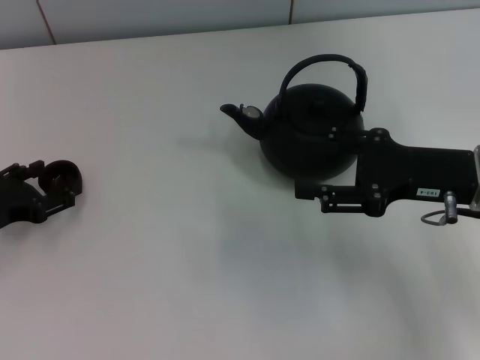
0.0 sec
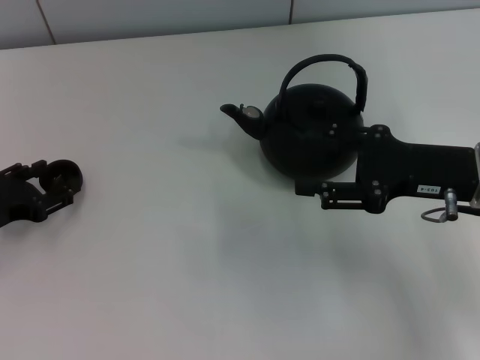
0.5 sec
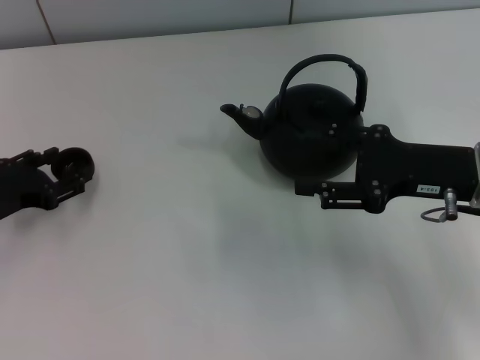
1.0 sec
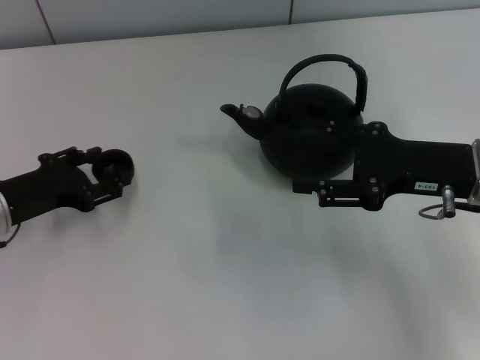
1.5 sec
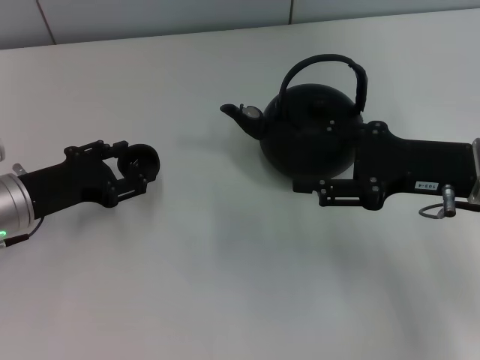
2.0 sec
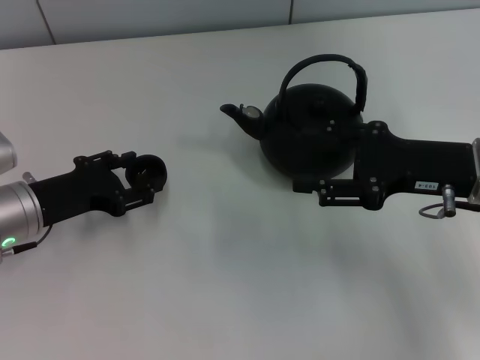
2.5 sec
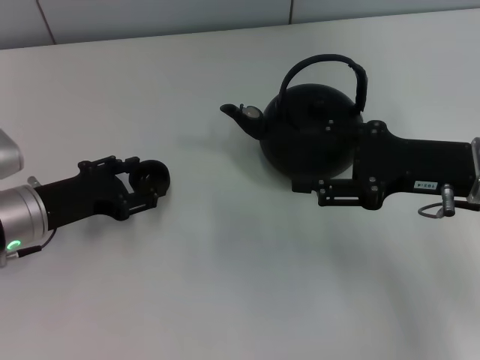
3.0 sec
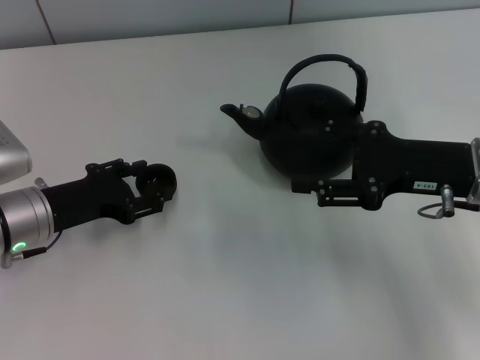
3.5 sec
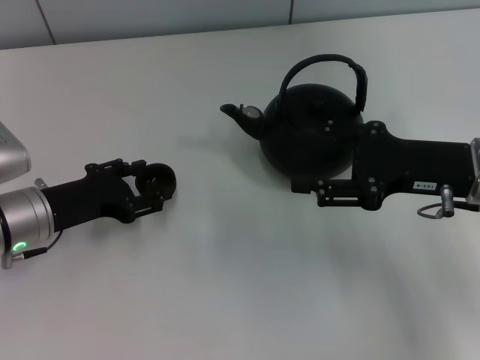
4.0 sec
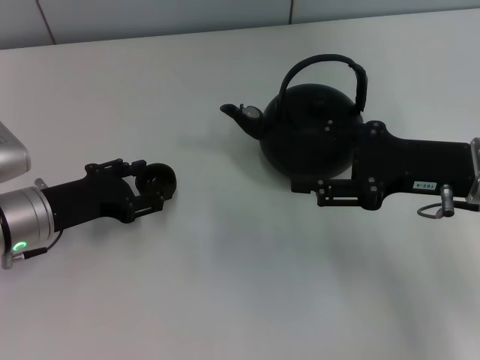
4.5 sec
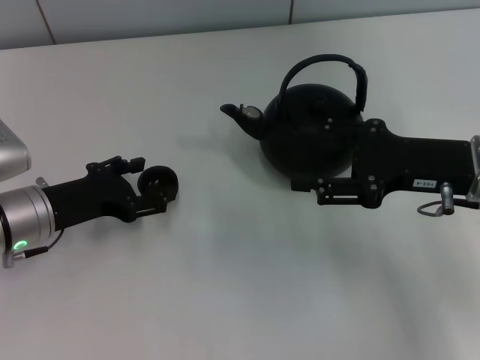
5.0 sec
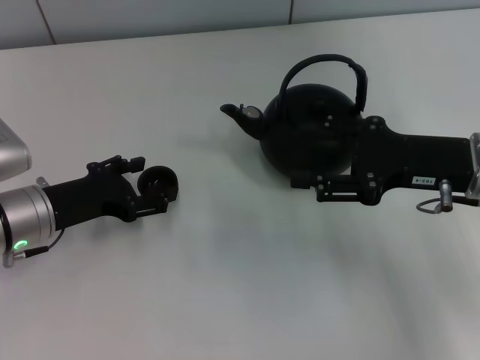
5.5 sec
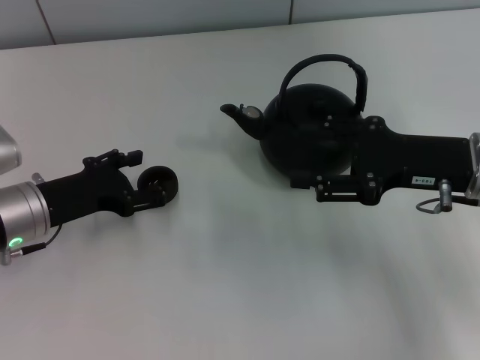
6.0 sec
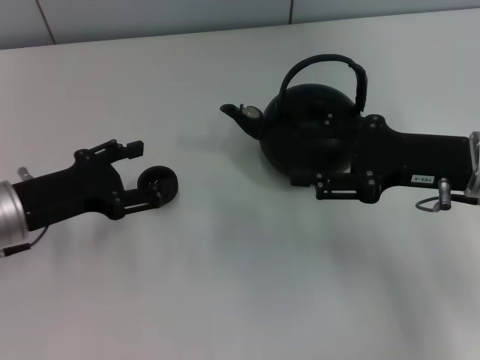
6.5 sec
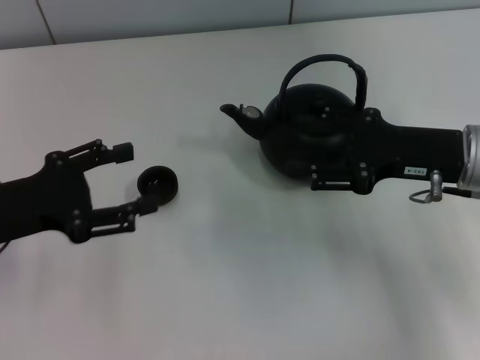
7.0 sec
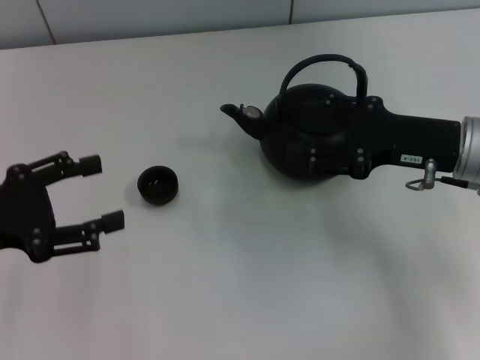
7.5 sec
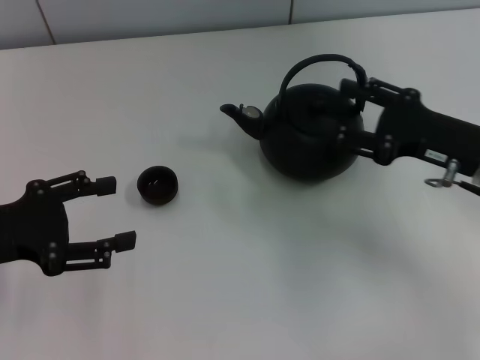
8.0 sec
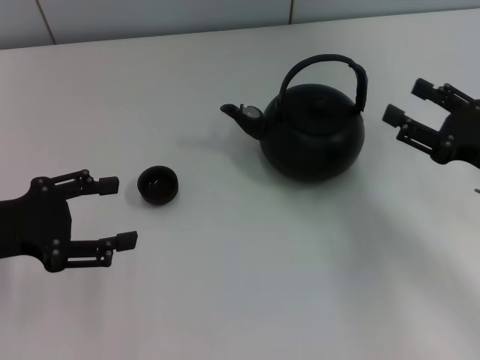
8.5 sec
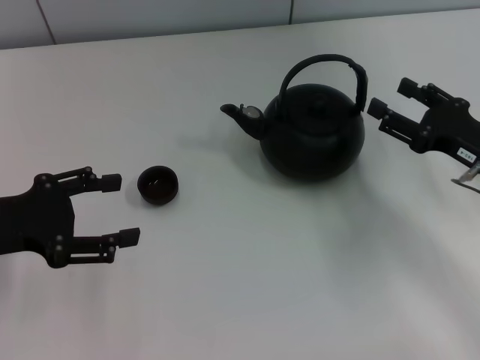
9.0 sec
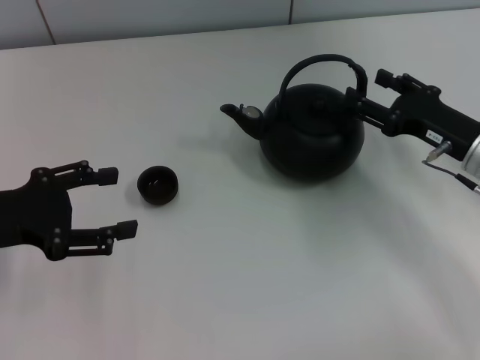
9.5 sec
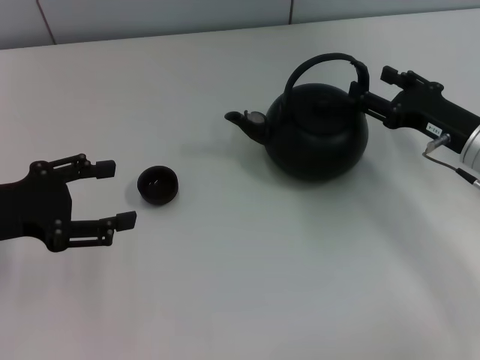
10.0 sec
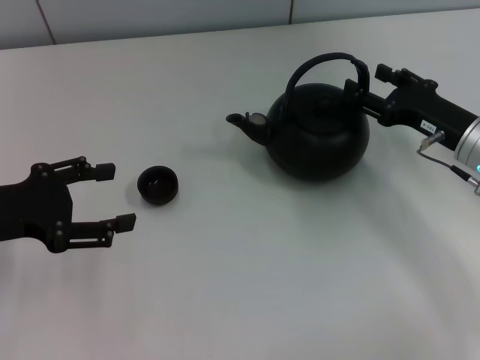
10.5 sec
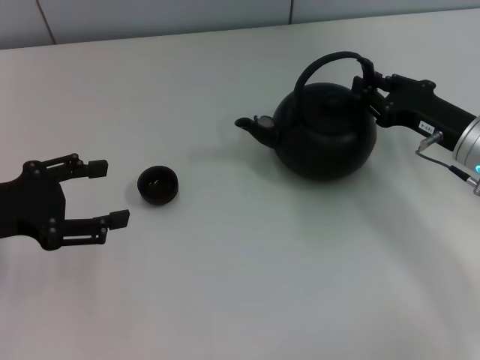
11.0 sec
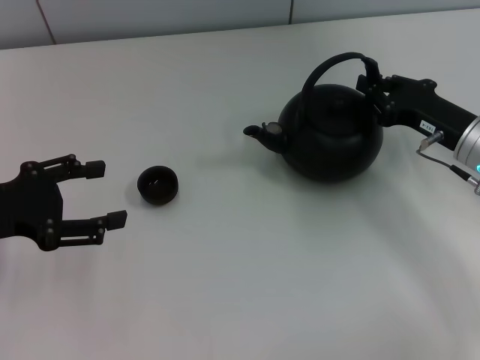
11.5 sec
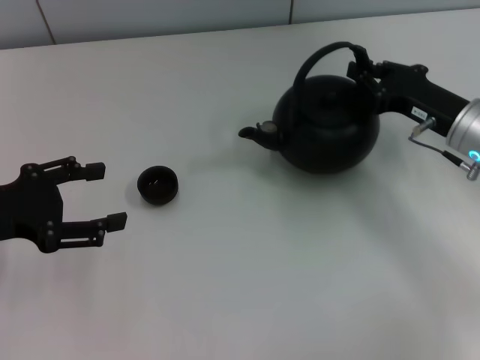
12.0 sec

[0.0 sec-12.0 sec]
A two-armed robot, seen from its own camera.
Task of the whole recording: Grasp the handle of the teapot with one hand and pour tea into the teacup.
Step, 2.0 sec to 6.0 sec: Place the teacup in the center of view with the left gripper.
0.0 sec to 2.0 sec: The left gripper moves to the right, roughly 5 cm, and closes up.
2.0 sec to 4.0 sec: There are only small adjustments of the grippers.
4.0 sec to 6.0 sec: The left gripper opens.
6.0 sec to 8.0 sec: The left gripper travels upward, to the left and backward by some 10 cm.
8.0 sec to 10.0 sec: The right gripper moves roughly 5 cm.
10.0 sec to 12.0 sec: The right gripper closes its fingers.

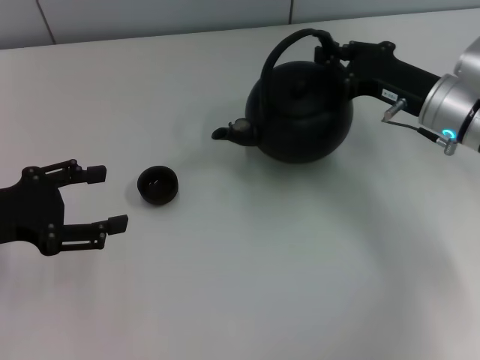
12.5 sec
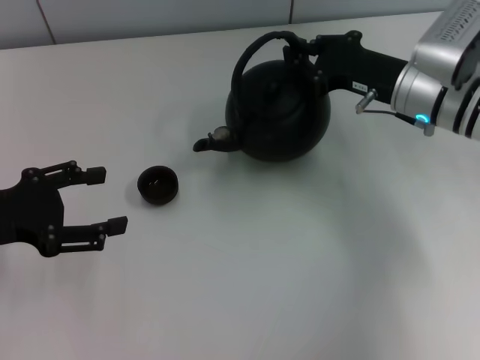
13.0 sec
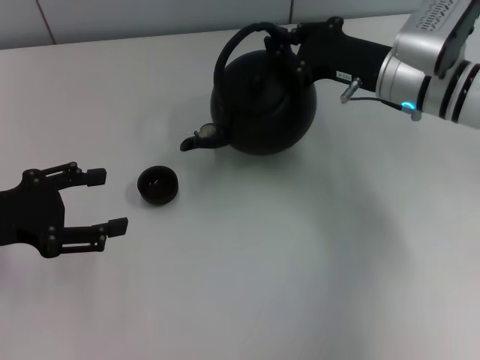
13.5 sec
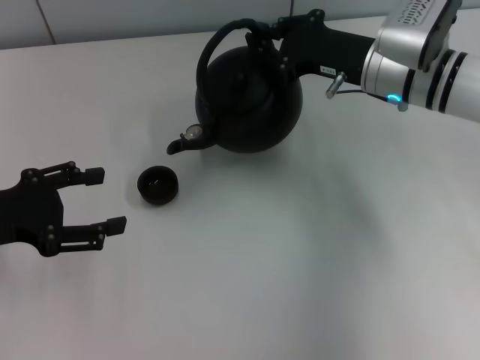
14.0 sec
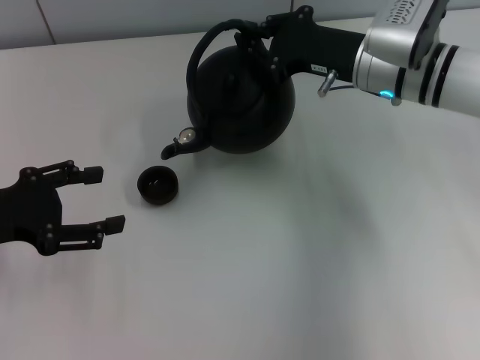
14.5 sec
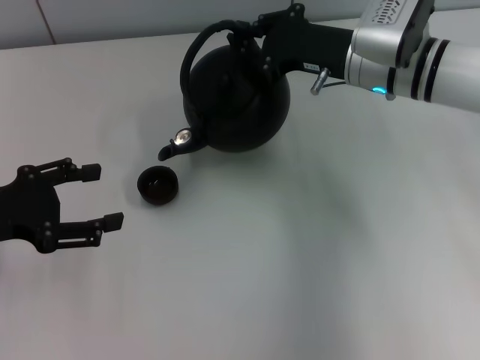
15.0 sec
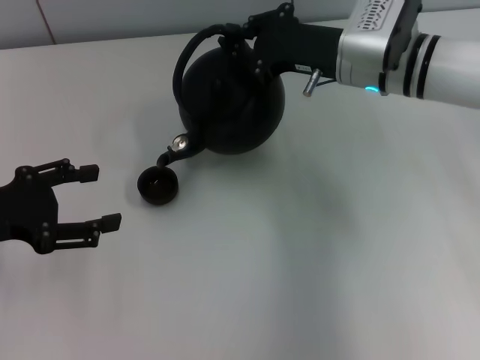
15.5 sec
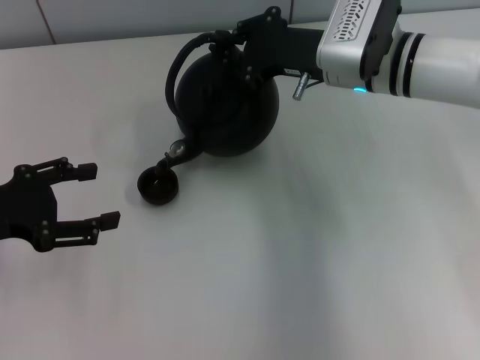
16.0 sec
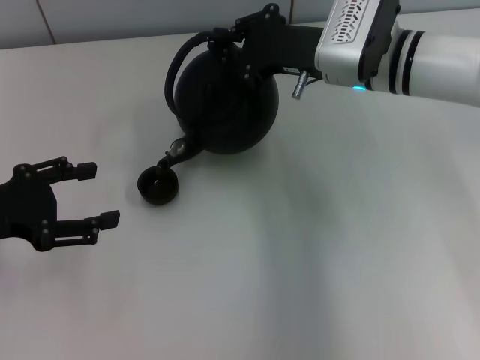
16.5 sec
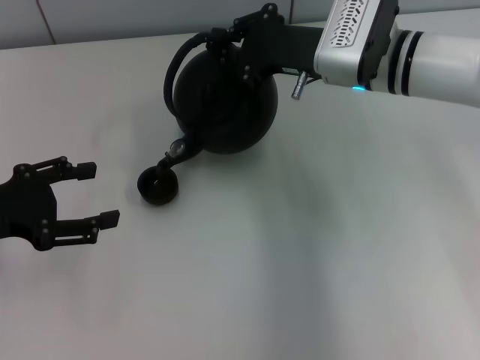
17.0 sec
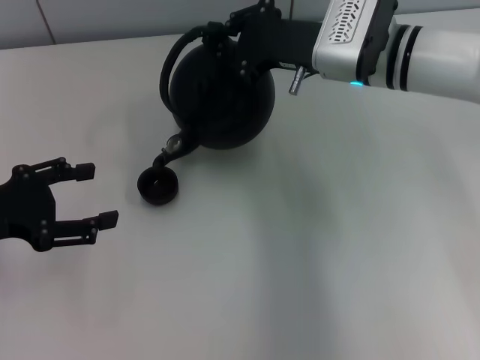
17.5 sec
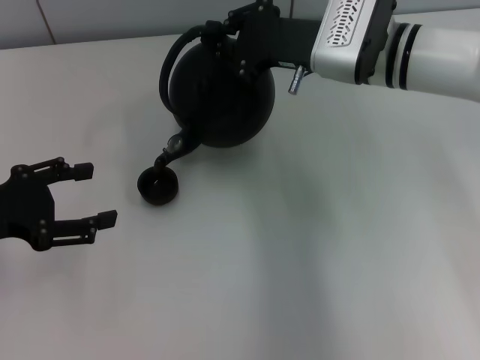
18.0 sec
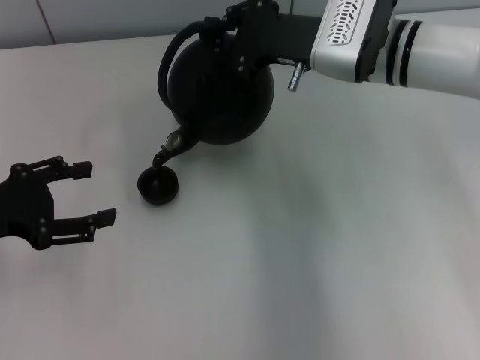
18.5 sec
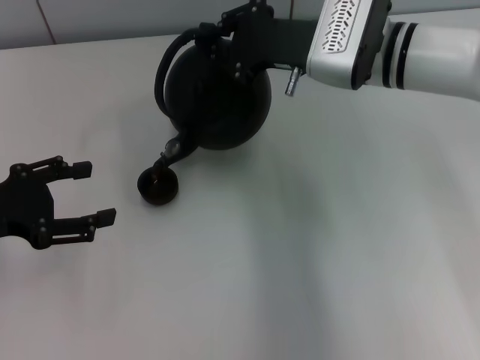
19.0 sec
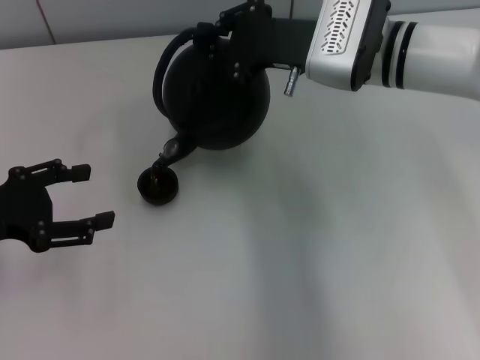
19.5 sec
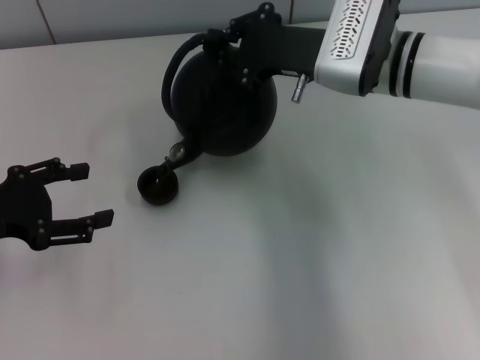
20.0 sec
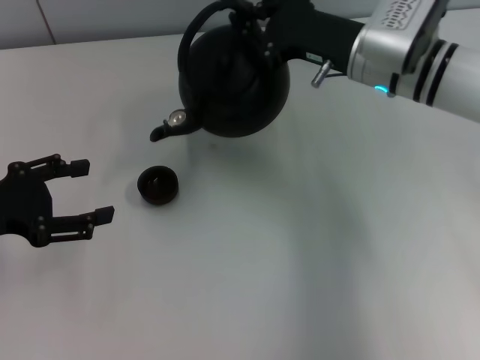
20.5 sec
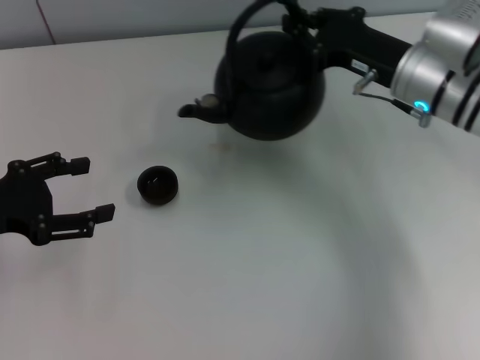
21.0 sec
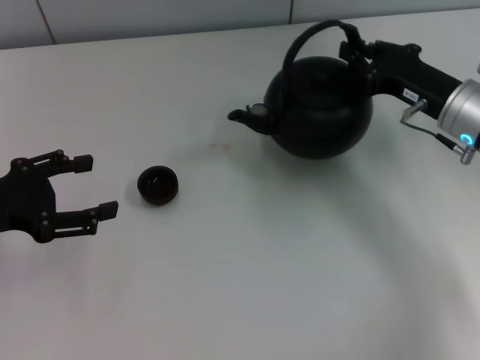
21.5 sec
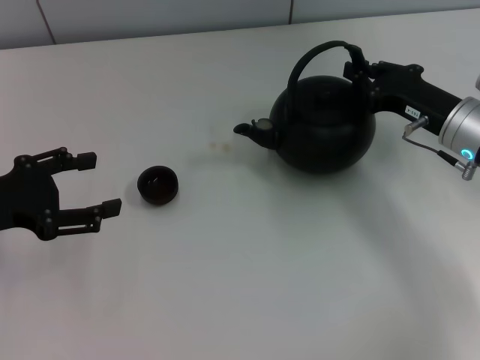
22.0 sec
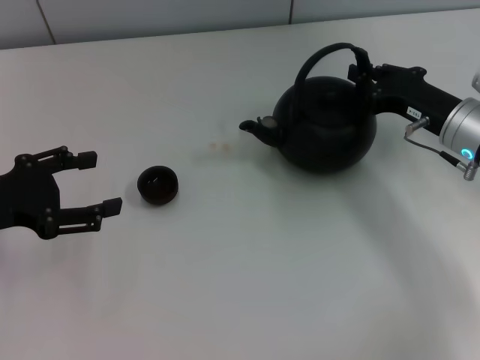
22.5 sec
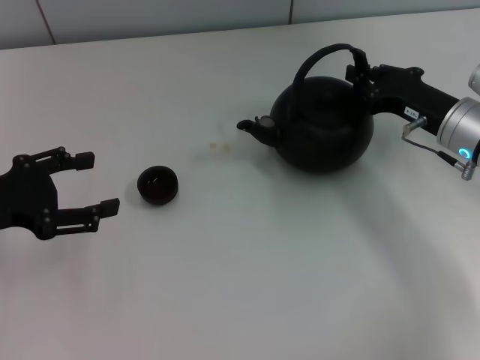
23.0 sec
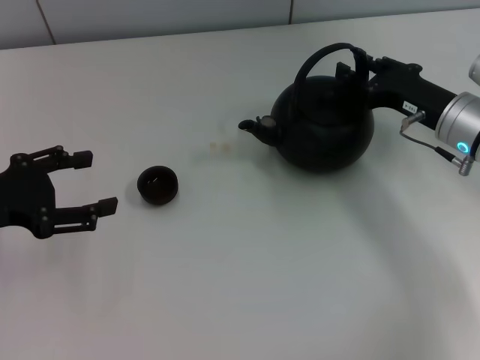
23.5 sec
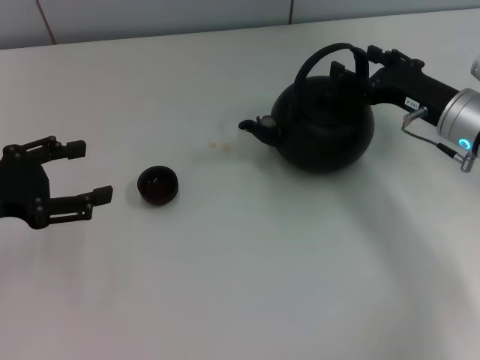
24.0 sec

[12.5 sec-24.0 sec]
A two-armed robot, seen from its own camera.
Task of the whole recording: Grasp the handle of the teapot with one hand and pour tea into the teacup.
12.5 sec to 14.5 sec: The right gripper travels to the left by about 5 cm.
14.5 sec to 18.5 sec: The grippers make only small movements.
18.5 sec to 20.0 sec: Both grippers stay about where they are.
20.0 sec to 22.0 sec: The right gripper is displaced to the right, downward and backward by roughly 15 cm.
22.0 sec to 24.0 sec: The right gripper opens.

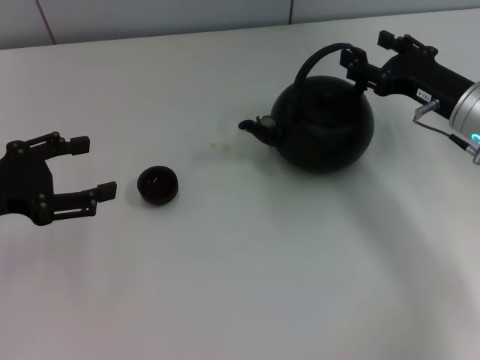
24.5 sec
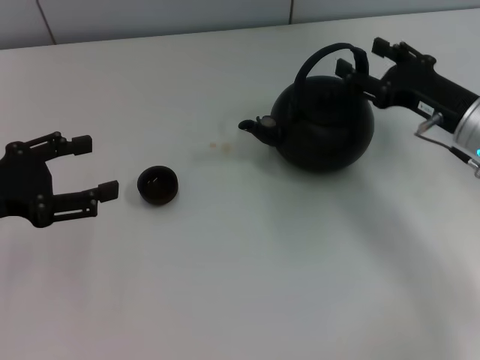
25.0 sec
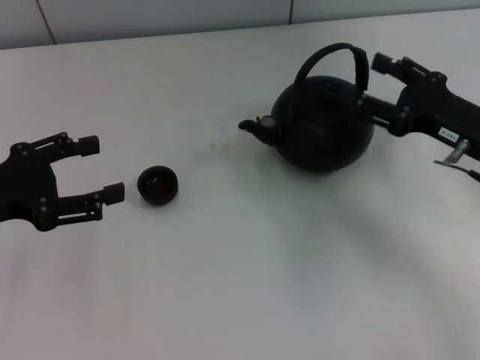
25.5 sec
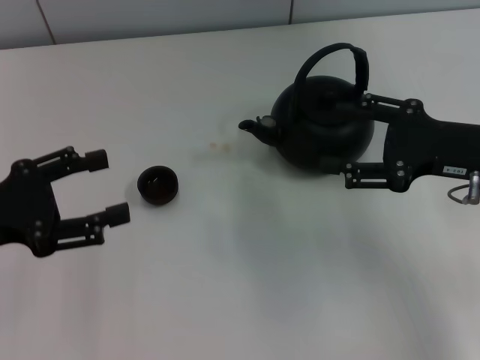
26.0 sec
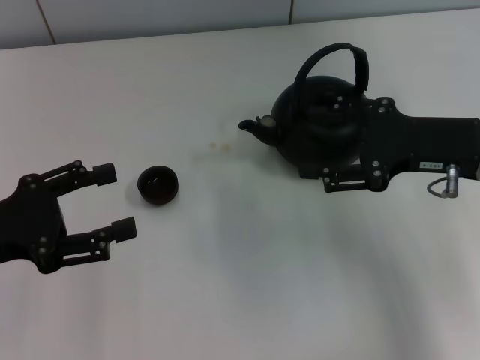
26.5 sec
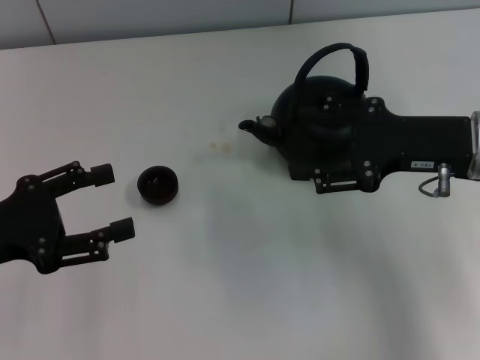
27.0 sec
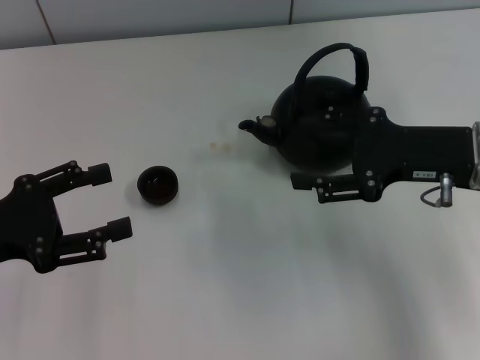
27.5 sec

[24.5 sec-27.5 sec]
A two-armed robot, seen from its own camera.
Task of the whole recording: Grasp the handle of the teapot with one hand and pour tea into the teacup.
24.5 sec to 26.0 sec: The right gripper goes some 5 cm backward.
26.0 sec to 27.5 sec: There are only small adjustments of the grippers.
